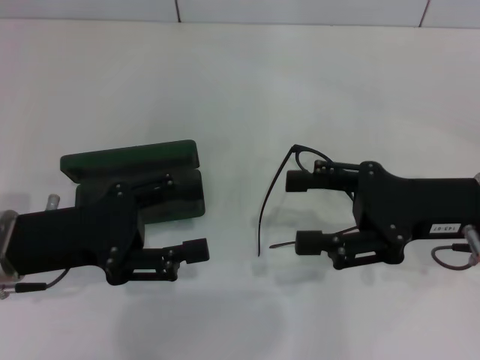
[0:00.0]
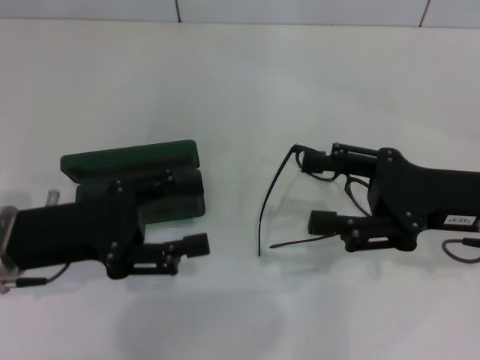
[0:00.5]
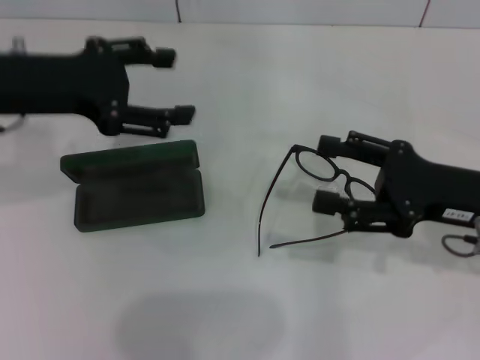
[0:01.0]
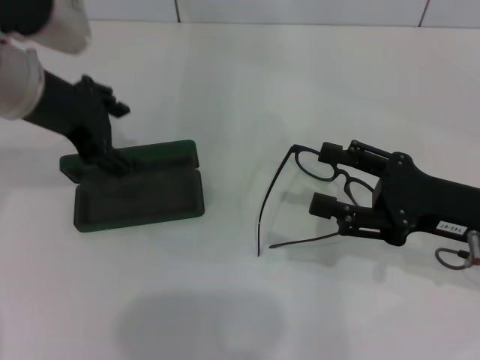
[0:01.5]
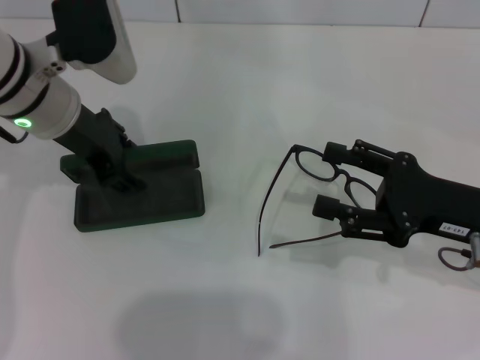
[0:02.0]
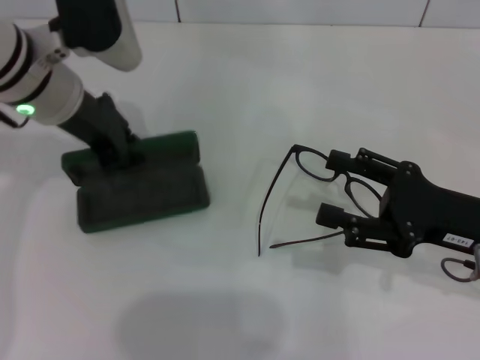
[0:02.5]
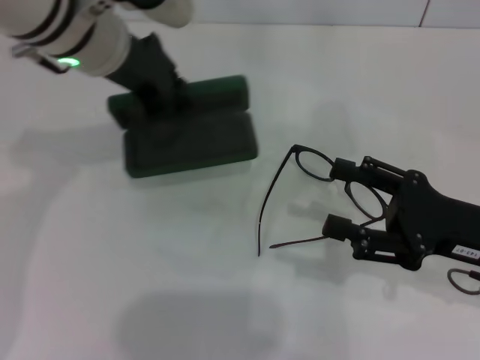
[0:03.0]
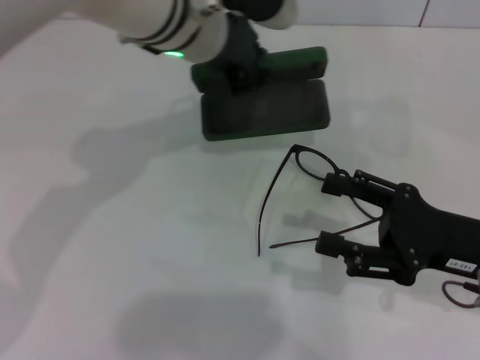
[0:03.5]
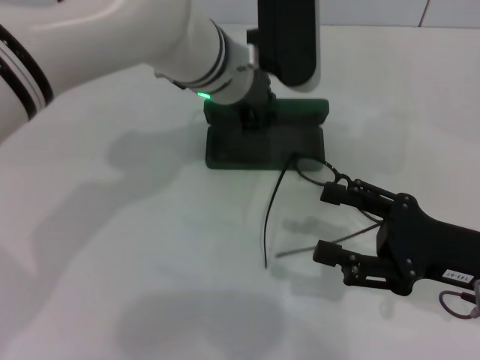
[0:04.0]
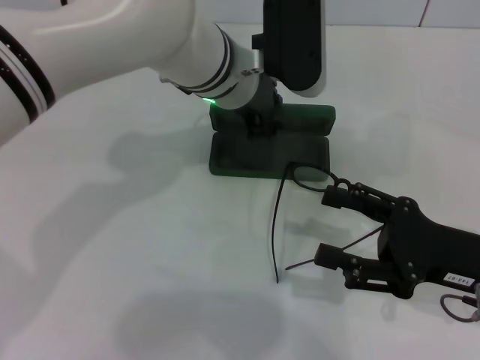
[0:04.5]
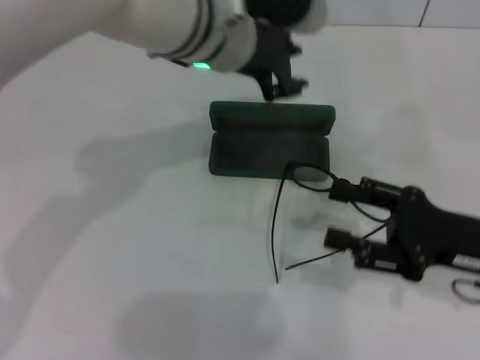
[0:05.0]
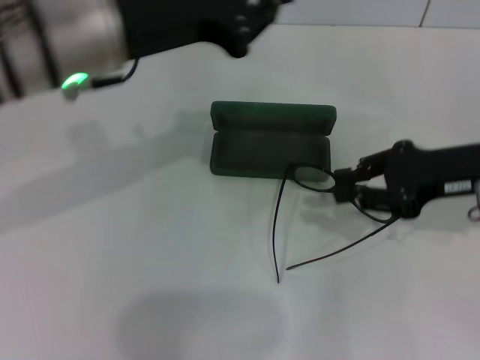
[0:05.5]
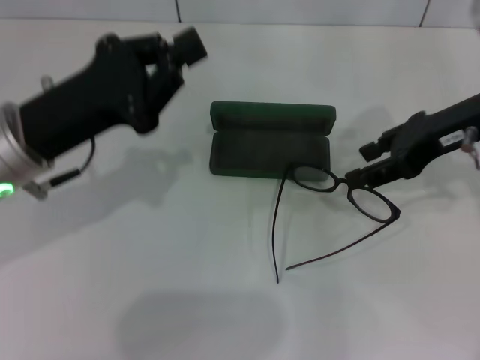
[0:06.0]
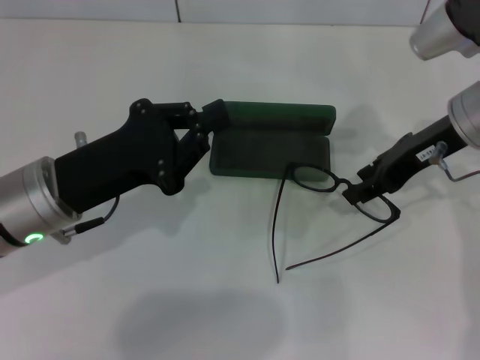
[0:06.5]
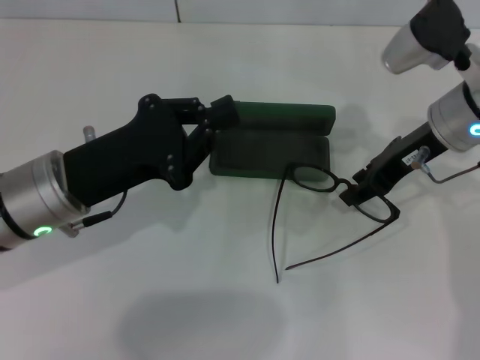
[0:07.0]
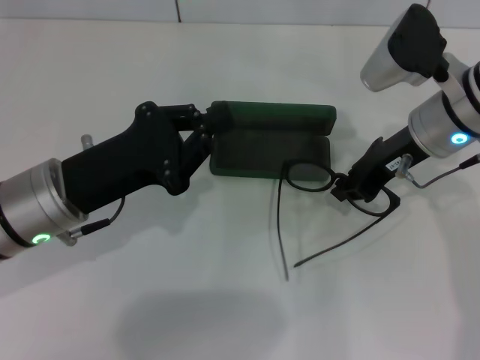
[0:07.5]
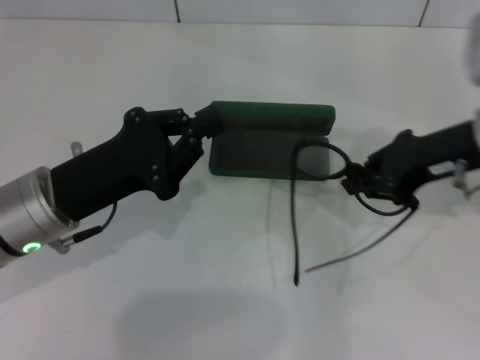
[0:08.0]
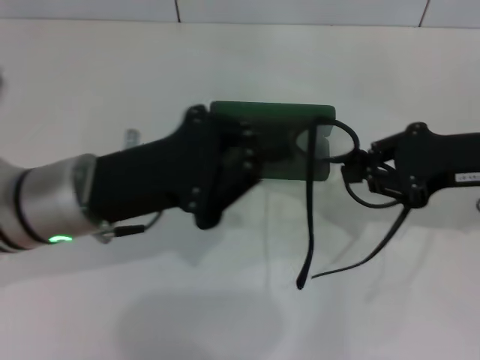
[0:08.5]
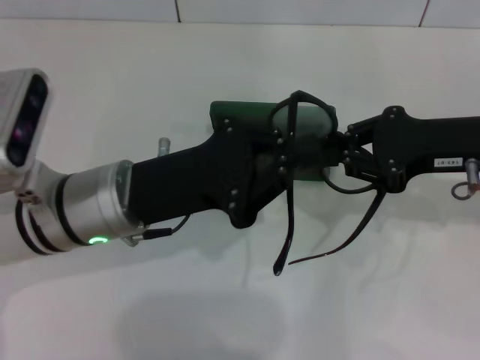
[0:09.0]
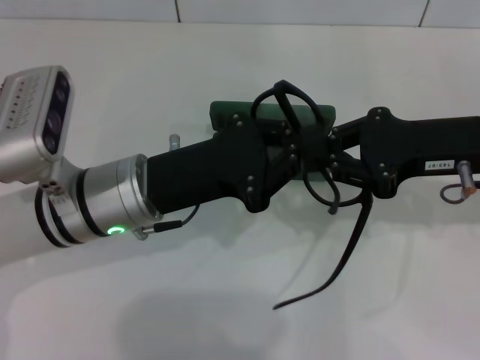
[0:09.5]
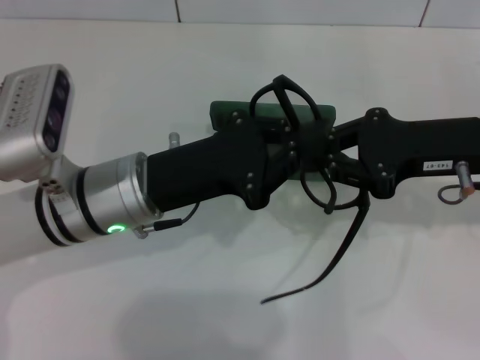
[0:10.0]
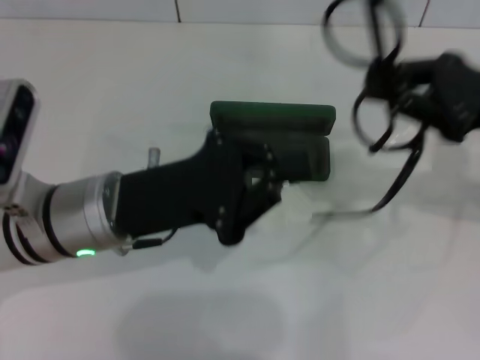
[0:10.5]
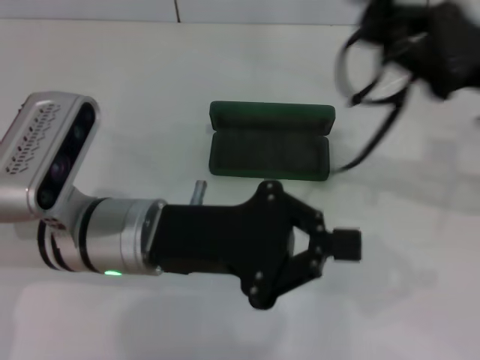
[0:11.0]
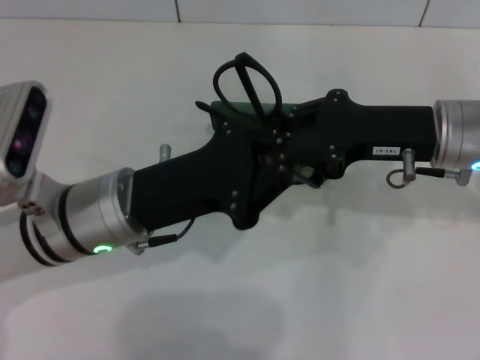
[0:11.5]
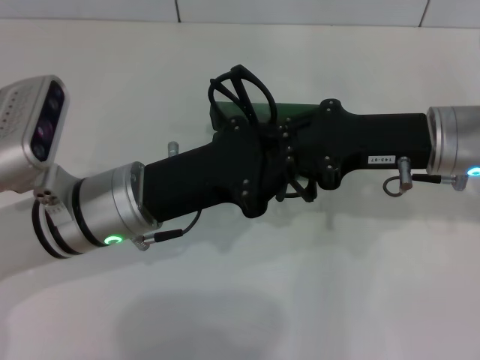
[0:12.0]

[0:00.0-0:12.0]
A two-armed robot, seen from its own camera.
Step, 0:00.0 to 0:02.0: Grab the glasses case with your left hand.
Step, 0:02.5 to 0:04.5: Place the glasses case in the center of the table with your left hand.
Step, 0:05.0 to 0:07.0: Grab the eyeglass frame with your right hand.
Step, 0:07.5 to 0:11.5: Fold the frame with your left hand.
0:00.0 to 0:02.0: The left gripper moves forward, upward and to the right, about 15 cm.
0:02.0 to 0:04.0: The left gripper shifts approximately 15 cm to the right, and closes.
0:04.0 to 0:06.0: The right gripper is displaced forward and upward by some 15 cm, and closes up; the left gripper moves to the left and backward, approximately 20 cm.
0:06.0 to 0:08.0: The left gripper moves roughly 5 cm; the right gripper closes its fingers.
0:08.0 to 0:10.0: The left gripper goes about 5 cm to the right.

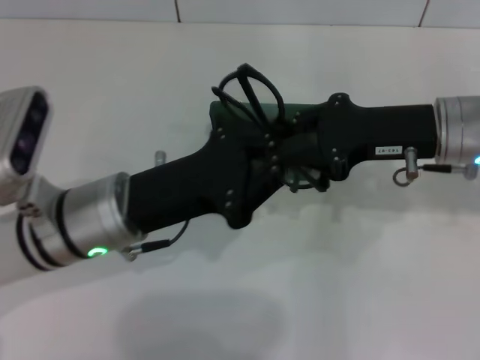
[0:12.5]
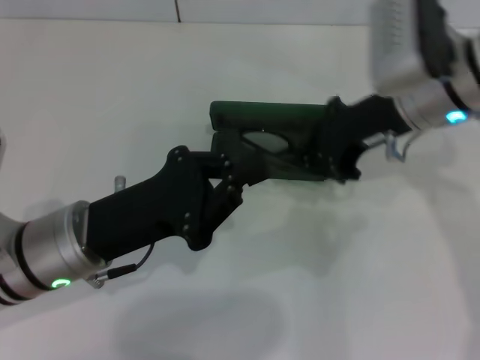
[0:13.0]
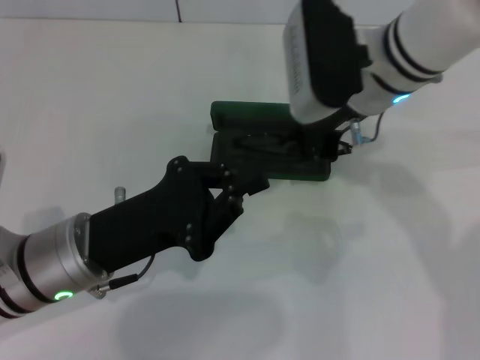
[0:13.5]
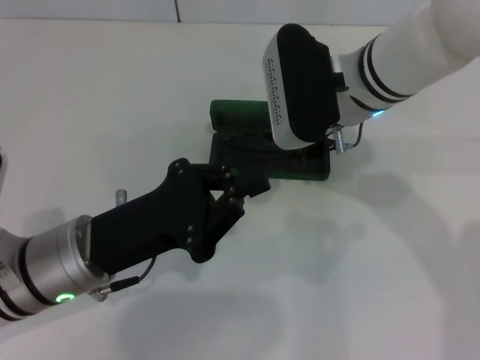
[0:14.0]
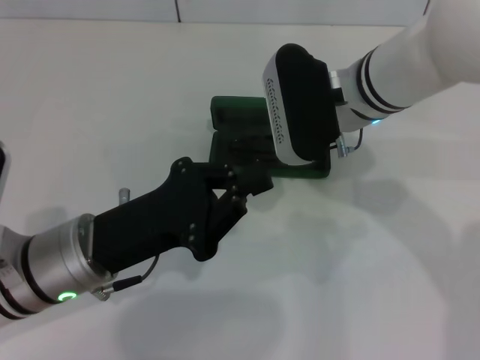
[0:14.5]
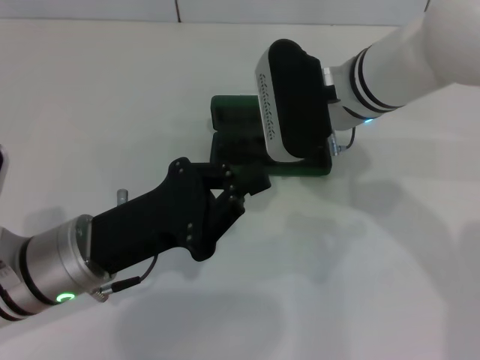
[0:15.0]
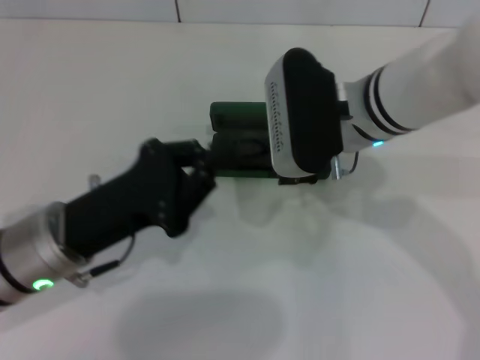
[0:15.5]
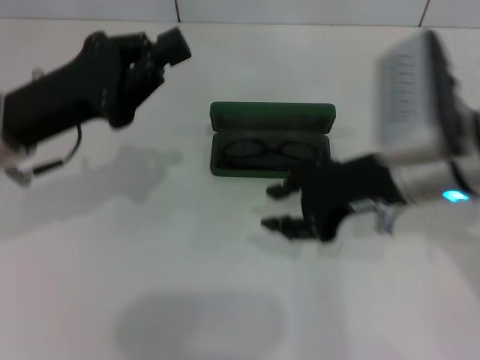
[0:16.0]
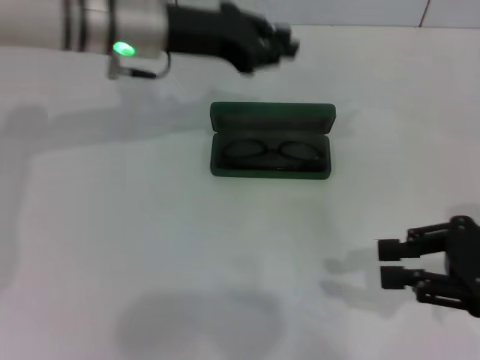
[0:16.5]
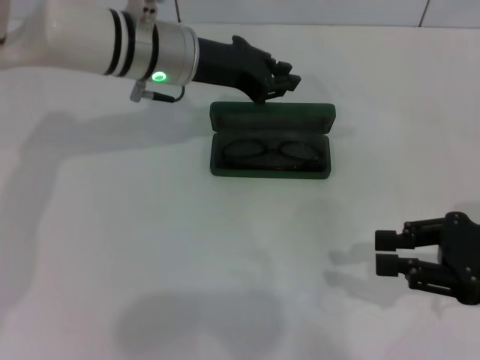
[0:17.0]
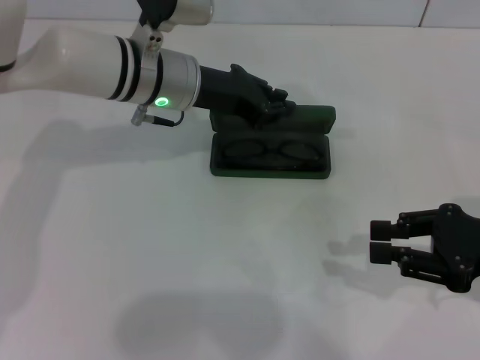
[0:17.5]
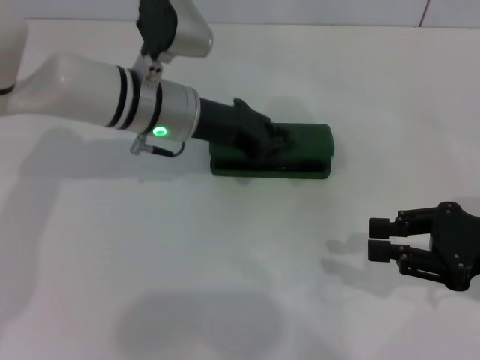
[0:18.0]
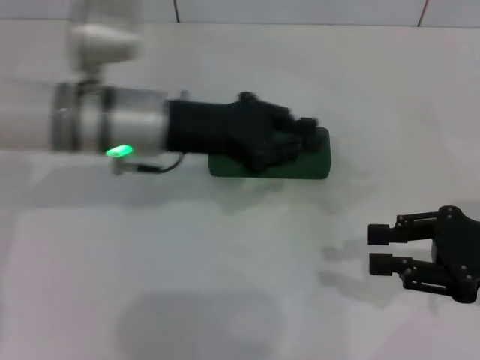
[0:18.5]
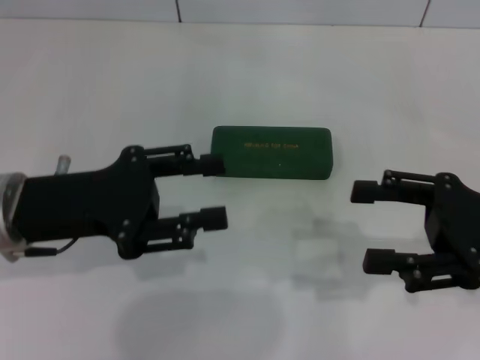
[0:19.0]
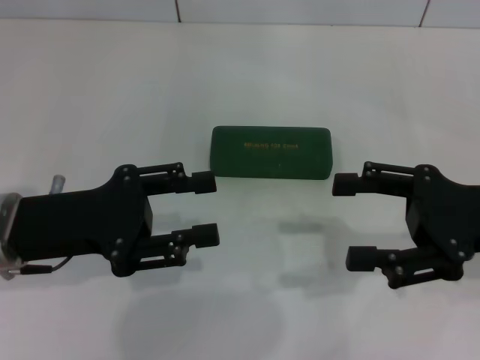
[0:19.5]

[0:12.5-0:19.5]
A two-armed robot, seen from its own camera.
Step, 0:12.5 to 0:15.0: Put the glasses into the case with your right hand.
Step, 0:15.5 to 0:18.0: Close the glasses case with your left hand.
0:12.5 to 0:14.5: The right gripper travels to the left by about 10 cm.
0:14.5 to 0:16.0: The right gripper is displaced backward and to the right by approximately 10 cm, while the left gripper goes roughly 10 cm forward, upward and to the left.
0:16.0 to 0:17.5: The right gripper heads to the right and downward, covering roughly 15 cm; the left gripper shifts about 15 cm to the right and forward.
0:17.5 to 0:19.5: The right gripper opens its fingers. The left gripper shifts some 20 cm backward and to the left, and opens.

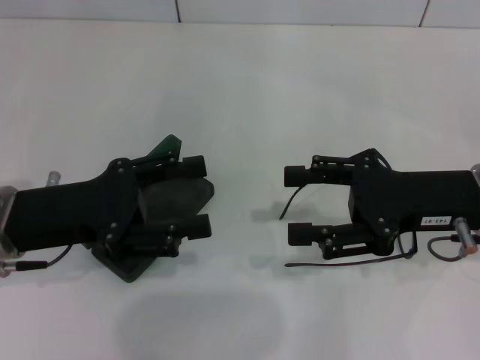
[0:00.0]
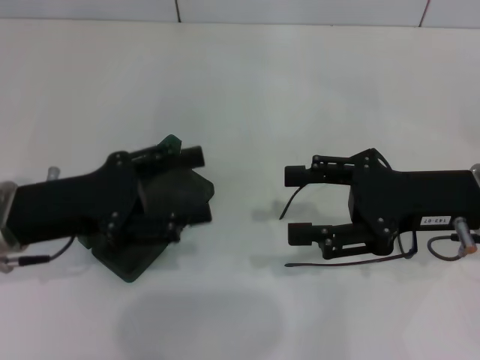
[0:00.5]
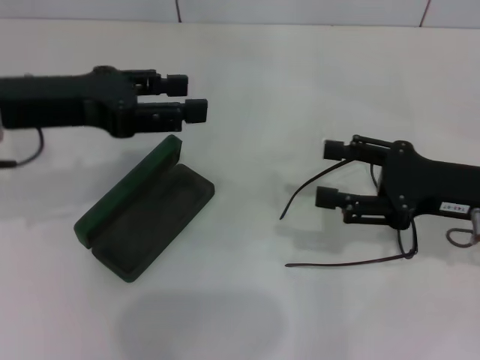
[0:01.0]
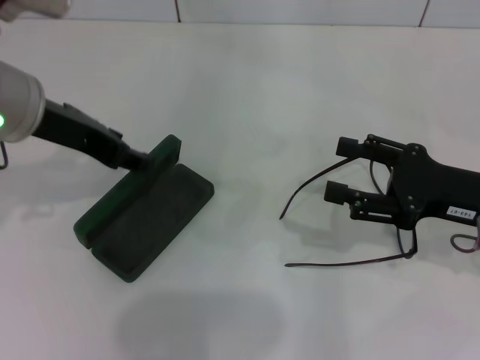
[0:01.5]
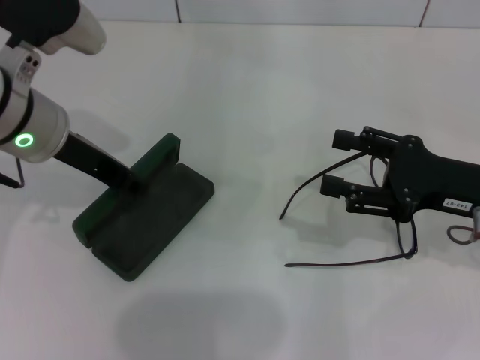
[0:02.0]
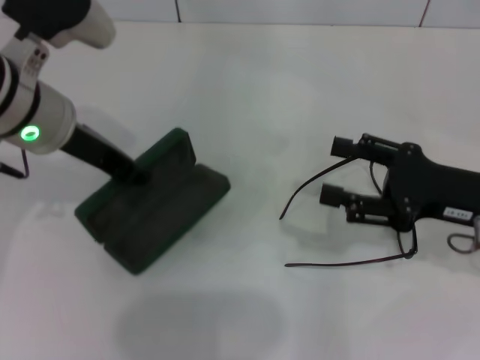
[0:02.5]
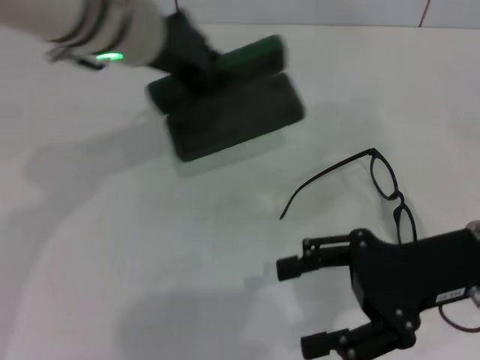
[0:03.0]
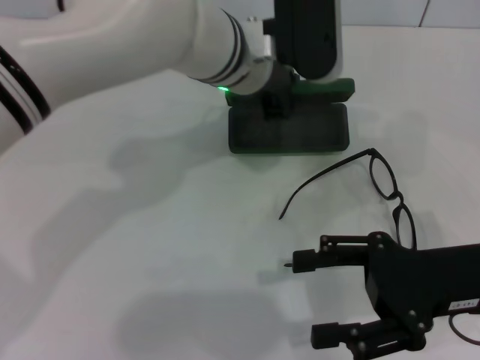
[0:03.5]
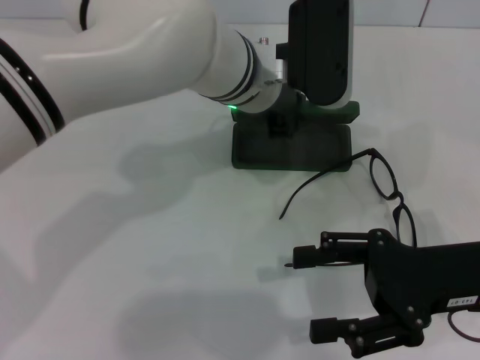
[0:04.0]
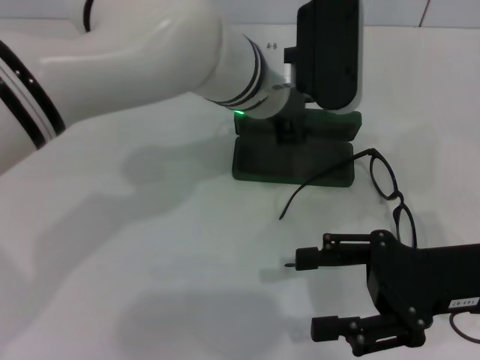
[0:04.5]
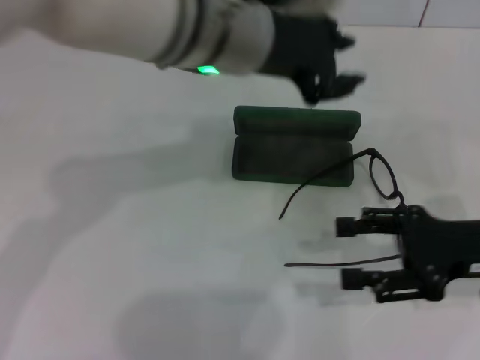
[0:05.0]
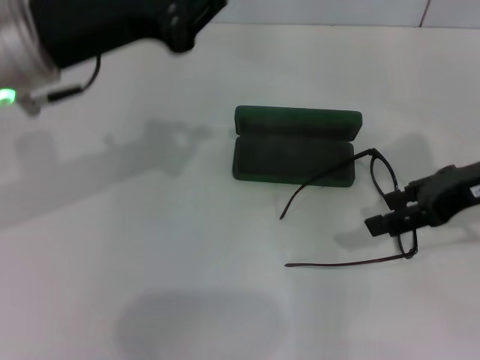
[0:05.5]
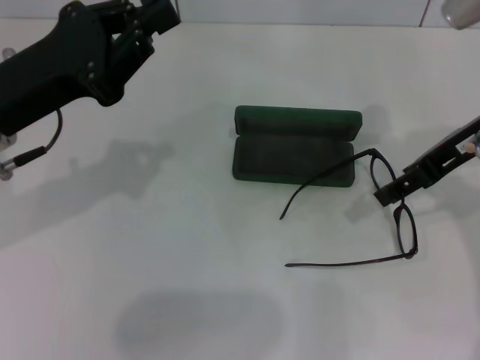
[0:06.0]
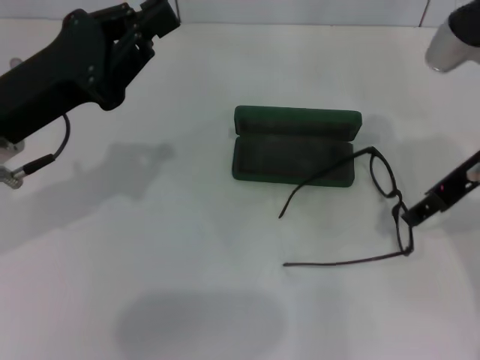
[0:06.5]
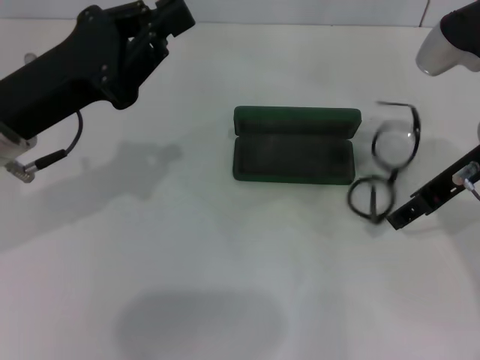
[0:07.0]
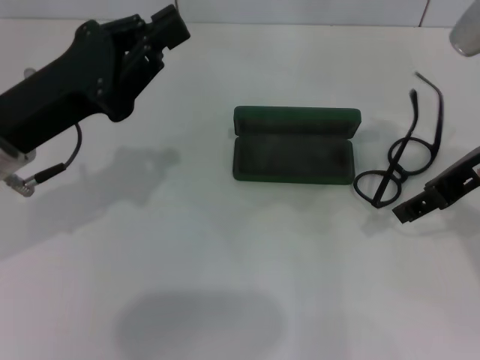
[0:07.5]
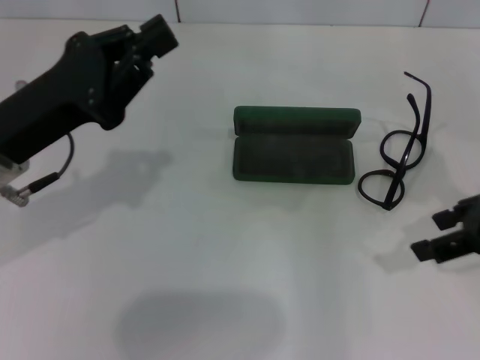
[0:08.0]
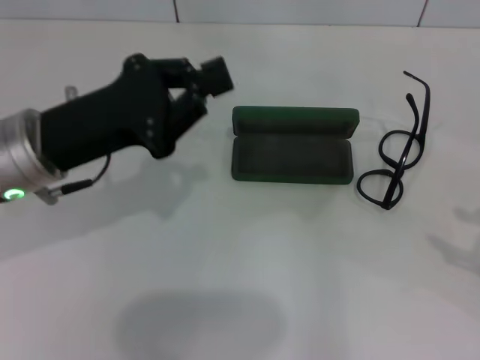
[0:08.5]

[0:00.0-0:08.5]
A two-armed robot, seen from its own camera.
Step, 0:00.0 to 0:02.0: Grab the glasses case with your left hand.
Step, 0:02.5 to 0:04.5: Place the glasses case in the center of the table with your left hand.
0:00.0 to 0:02.0: The left gripper goes approximately 10 cm forward and upward, and closes.
0:02.0 to 0:04.0: The left gripper shifts approximately 20 cm to the right.
0:04.0 to 0:06.5: The right gripper travels upward and forward by some 15 cm. Meanwhile the left gripper is displaced to the left and backward by some 25 cm.
0:06.5 to 0:08.5: The right gripper moves to the right and backward, about 20 cm.
